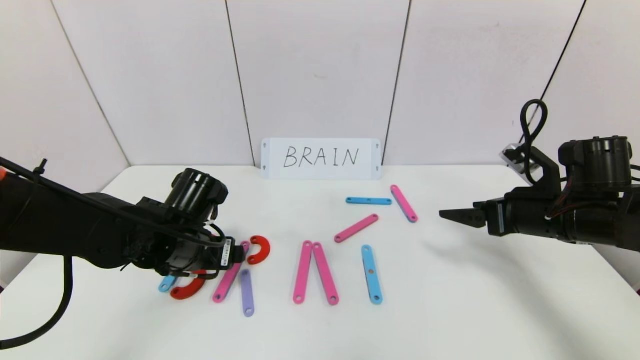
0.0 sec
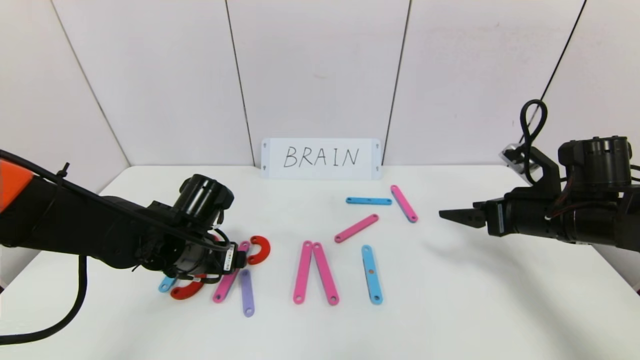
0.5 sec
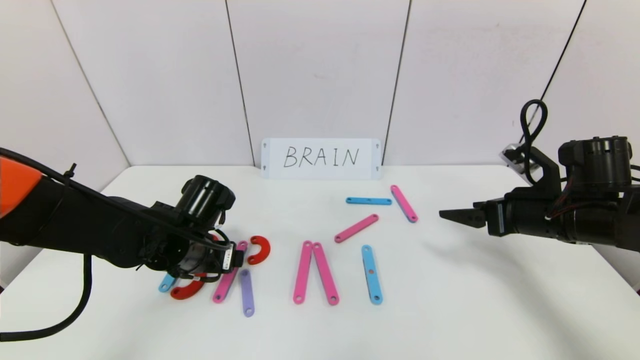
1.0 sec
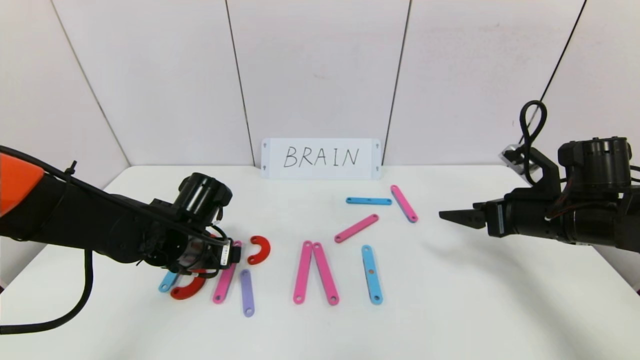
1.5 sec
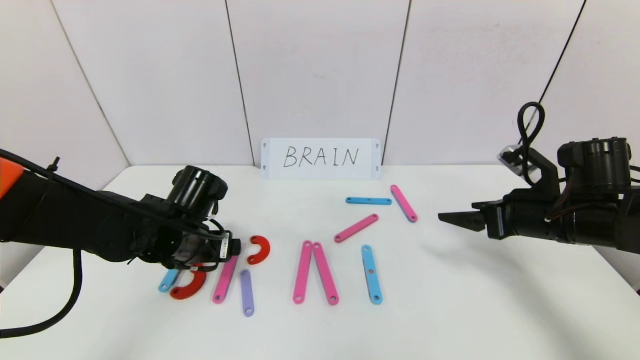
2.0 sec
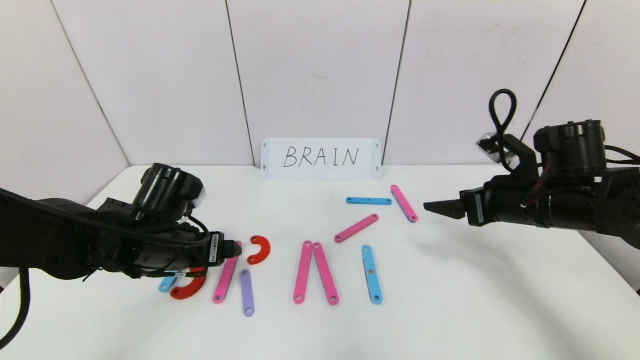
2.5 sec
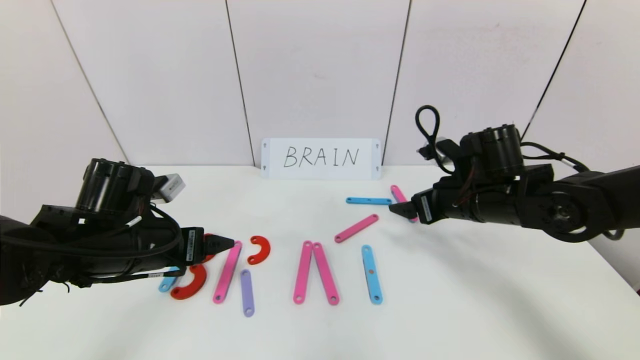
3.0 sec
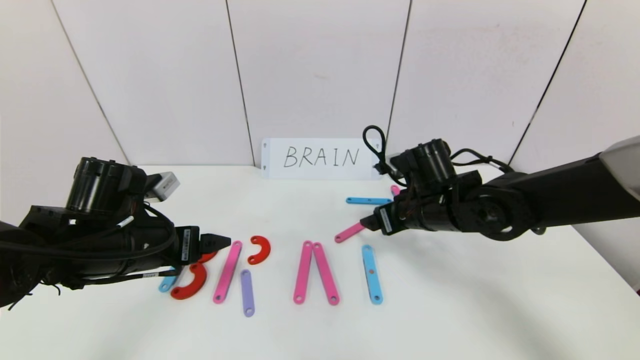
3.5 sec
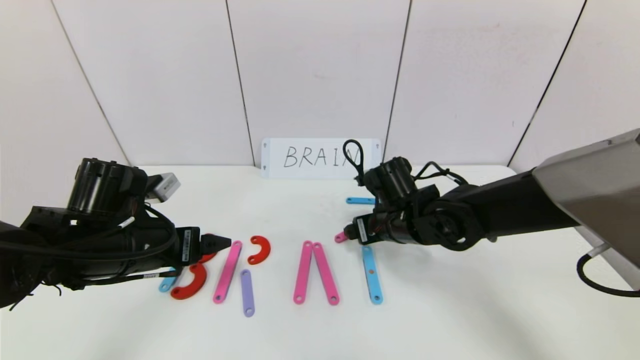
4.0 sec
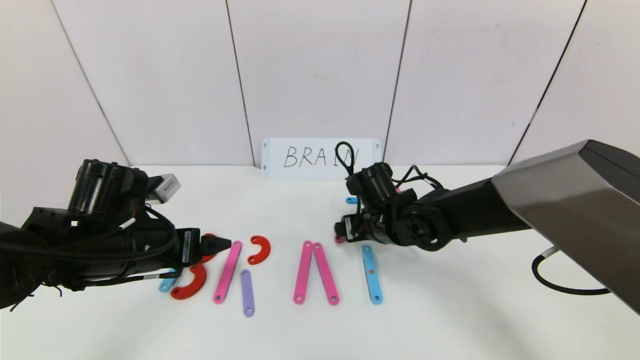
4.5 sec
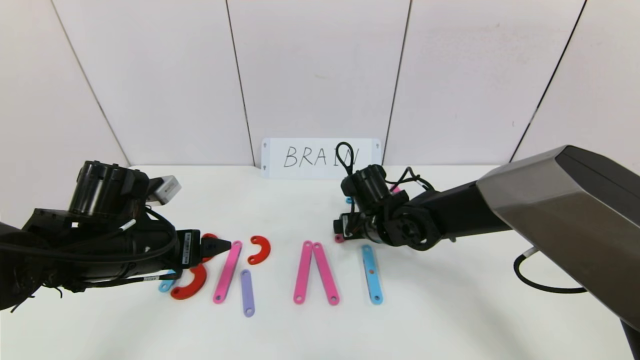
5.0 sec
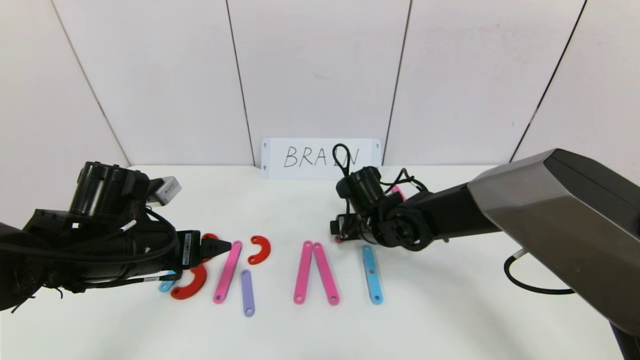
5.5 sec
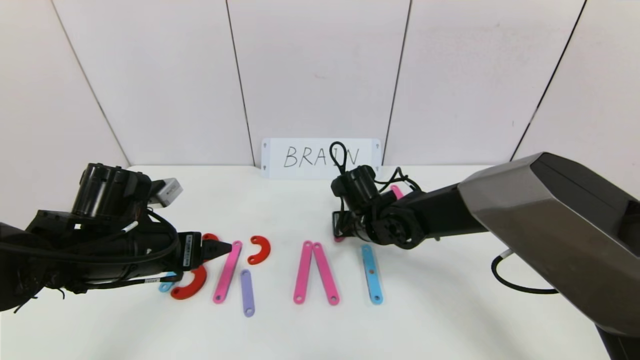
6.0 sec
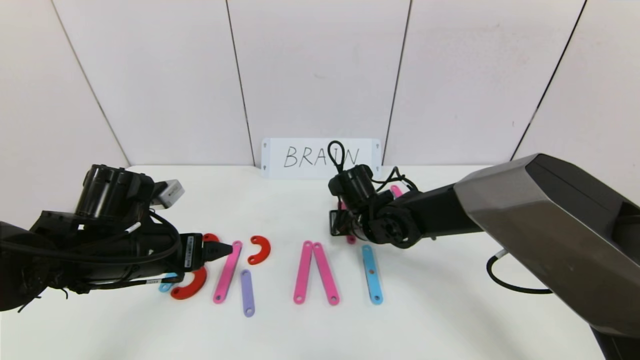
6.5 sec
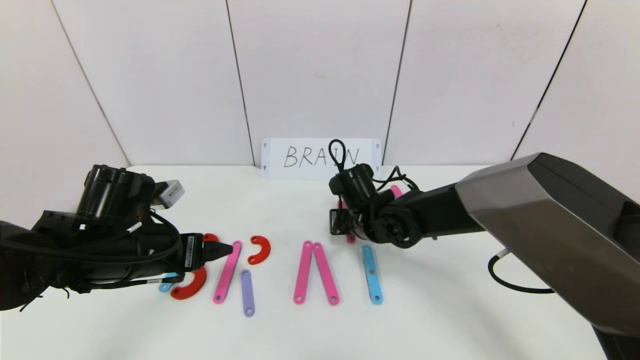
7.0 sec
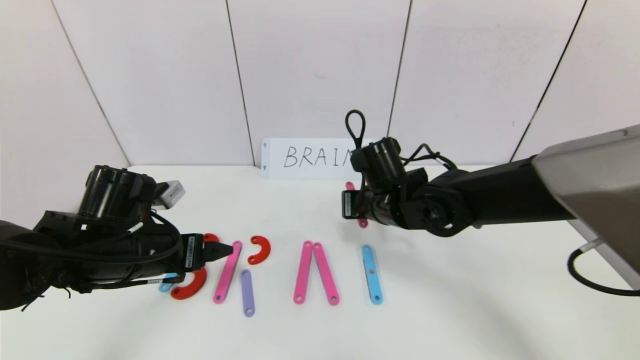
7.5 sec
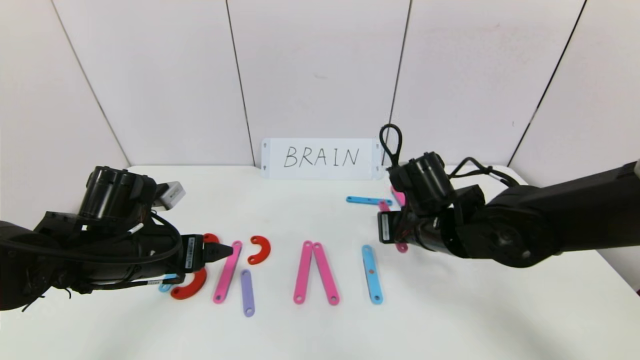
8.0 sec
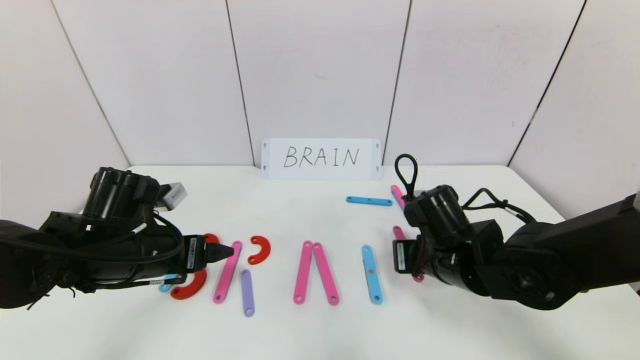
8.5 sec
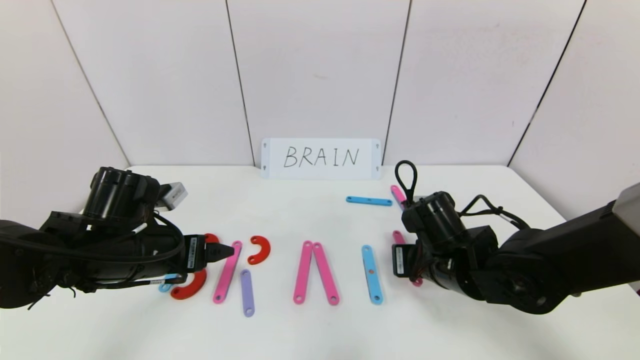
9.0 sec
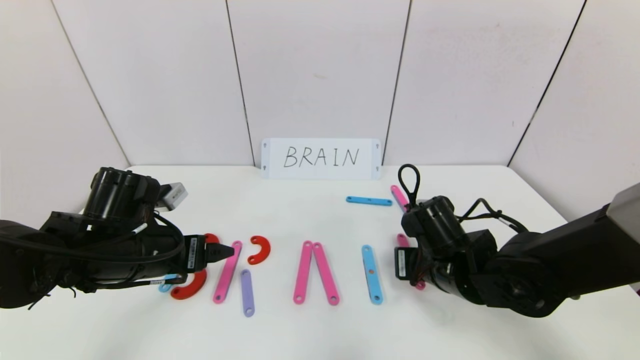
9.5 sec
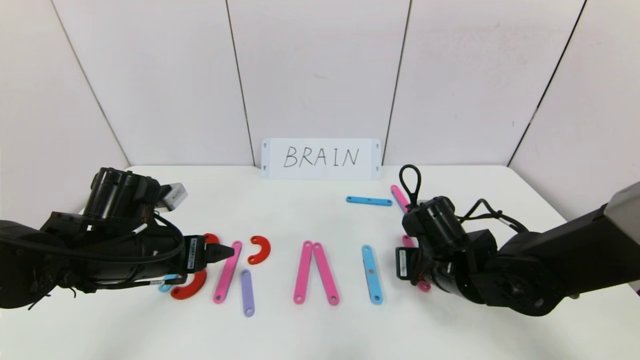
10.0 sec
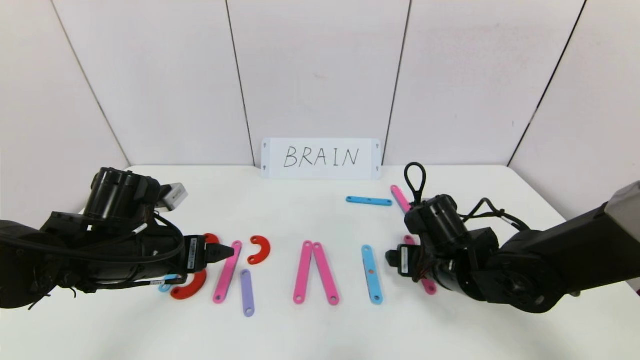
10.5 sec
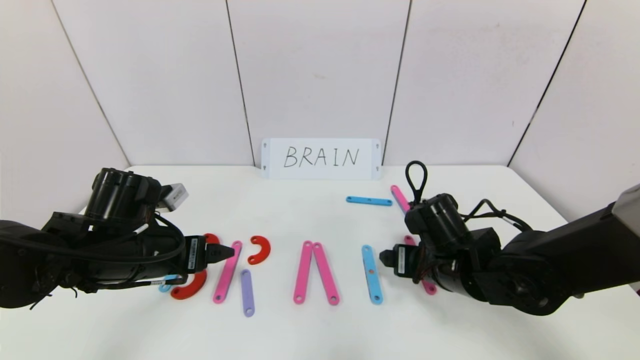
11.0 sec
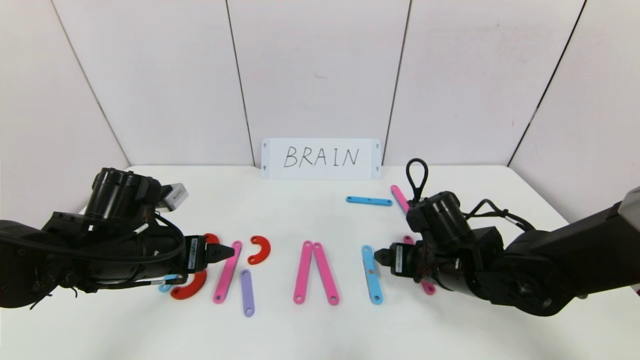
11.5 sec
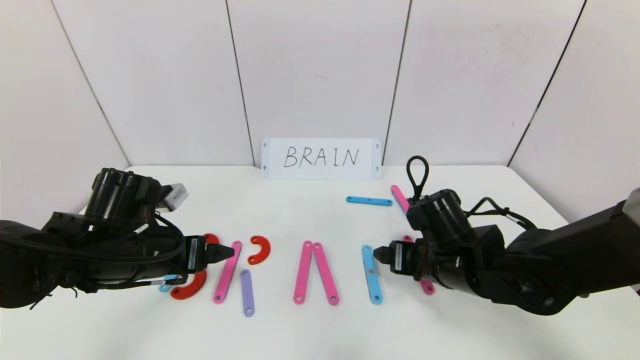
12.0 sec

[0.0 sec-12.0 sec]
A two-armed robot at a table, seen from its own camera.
Task of the whole recording: rearrange the word baai as brain.
Step, 0.0 sec to 2.5 sec: Place the character R between first character B and third character A.
0.0 sec to 2.0 sec: The grippers move only a little.
2.0 sec to 4.0 sec: The right gripper heads to the left, covering roughly 20 cm, while the left gripper moves roughly 5 cm.
4.0 sec to 6.0 sec: The right gripper ends up roughly 5 cm from where it was, and closes.
6.0 sec to 8.0 sec: The right gripper heads to the right, backward and upward, covering approximately 10 cm, and closes up.
8.0 sec to 10.0 sec: The right gripper goes about 5 cm downward.
10.0 sec to 12.0 sec: The right gripper opens up.

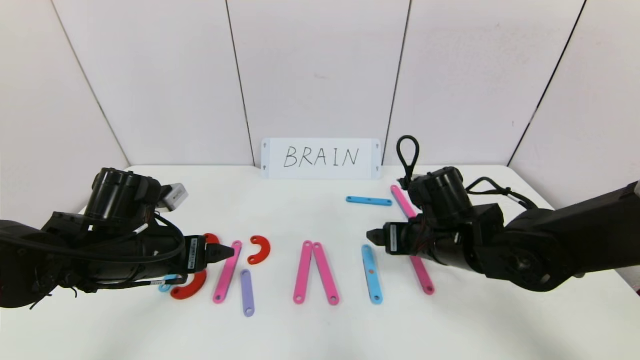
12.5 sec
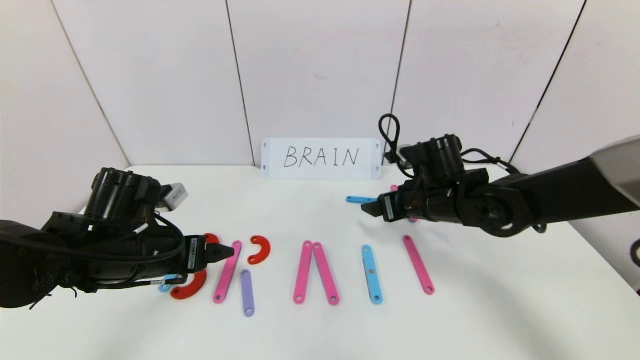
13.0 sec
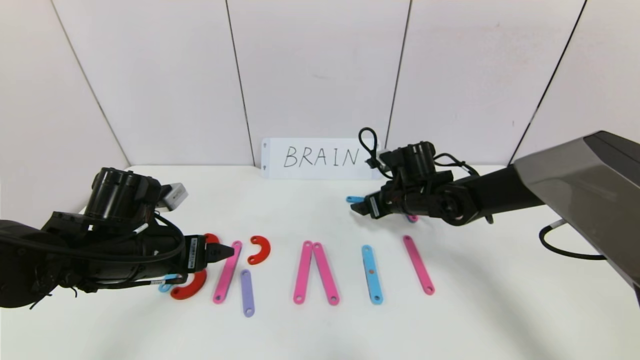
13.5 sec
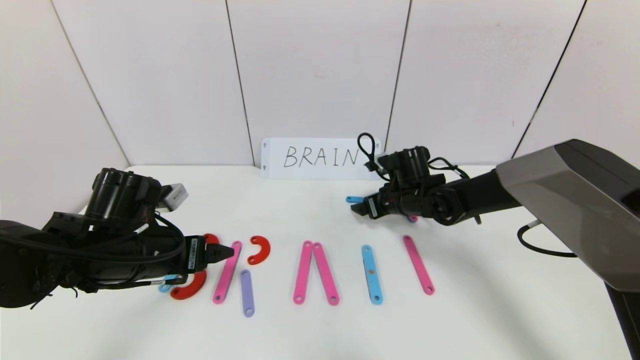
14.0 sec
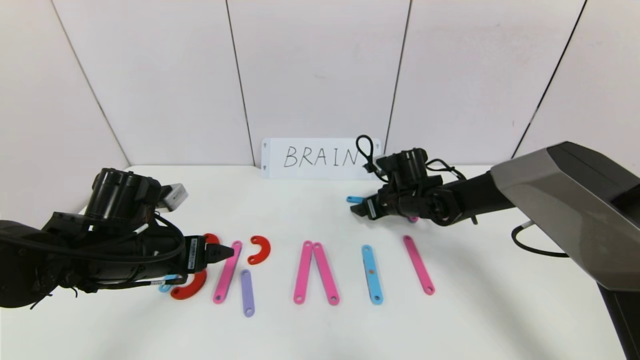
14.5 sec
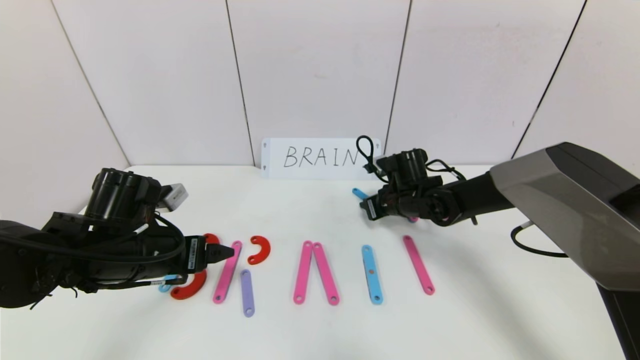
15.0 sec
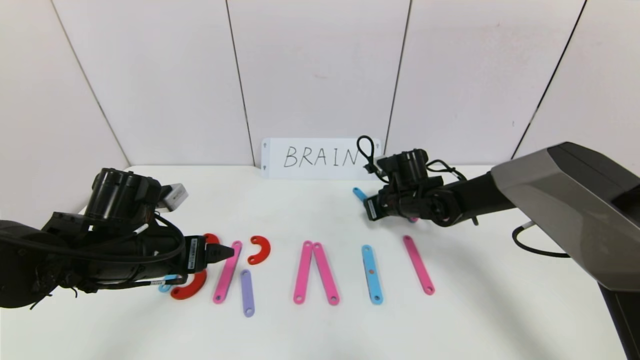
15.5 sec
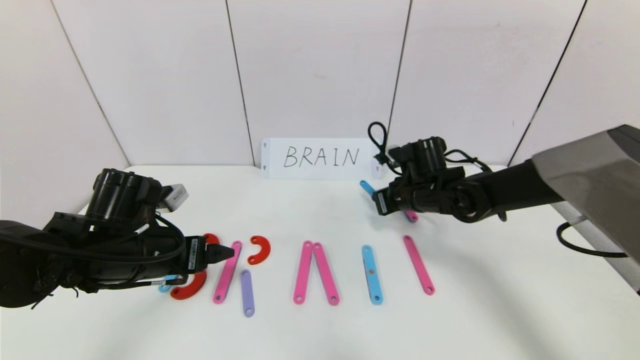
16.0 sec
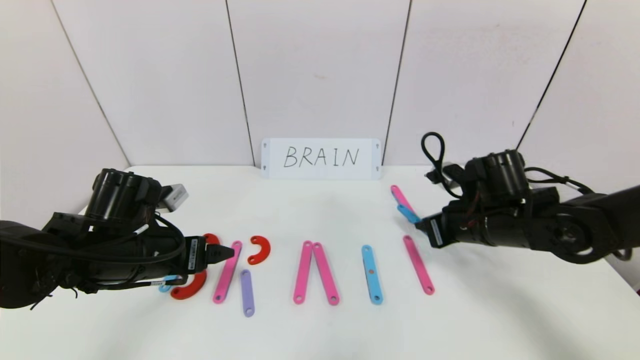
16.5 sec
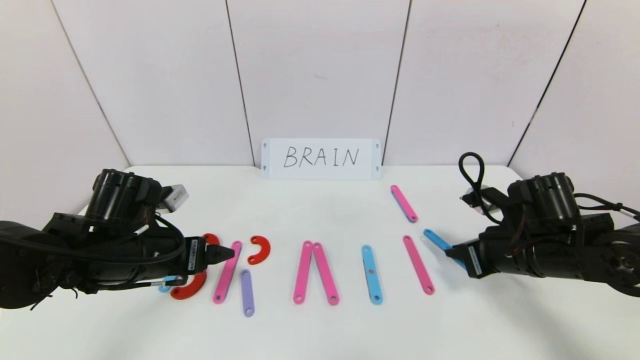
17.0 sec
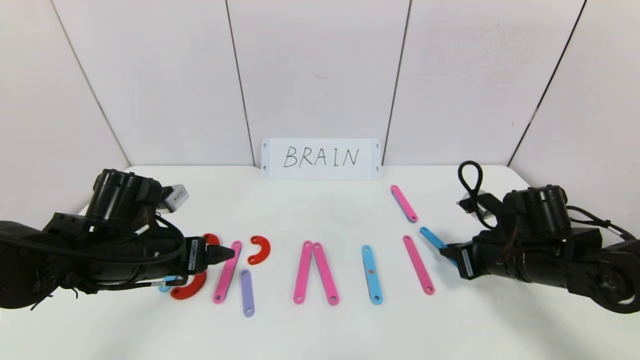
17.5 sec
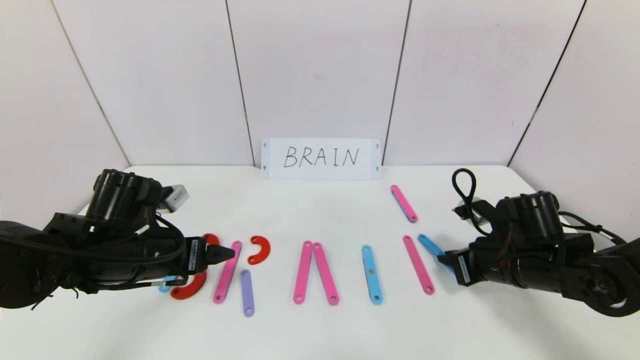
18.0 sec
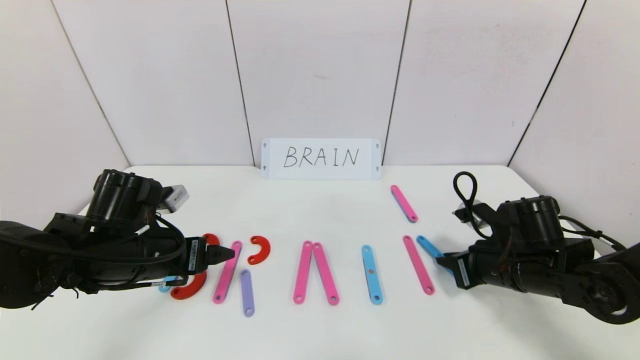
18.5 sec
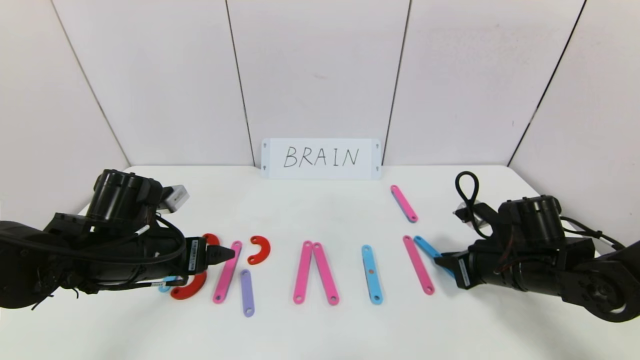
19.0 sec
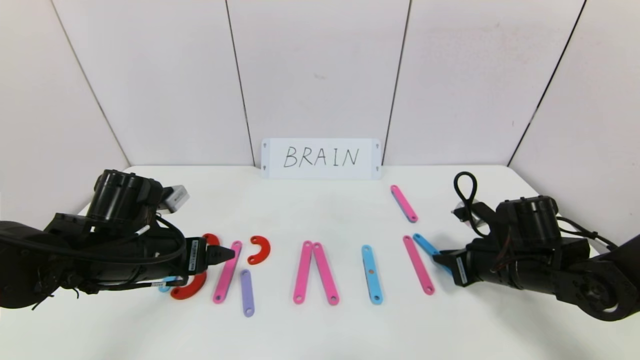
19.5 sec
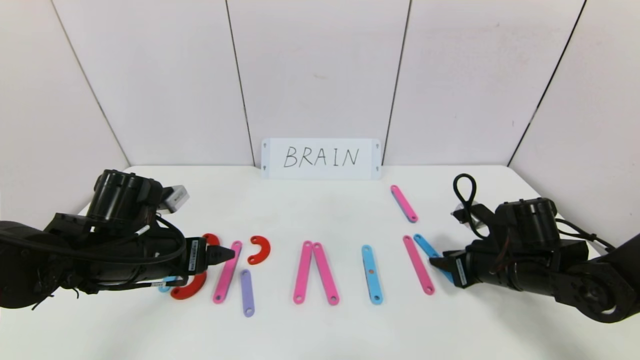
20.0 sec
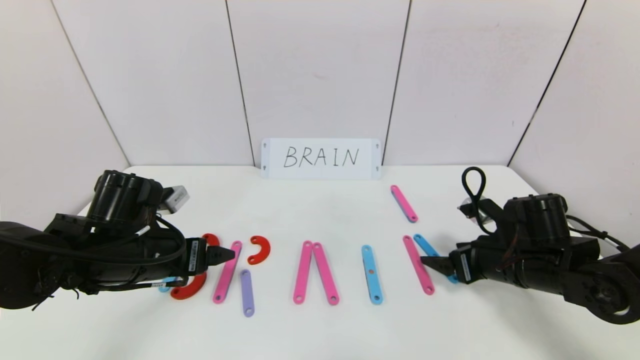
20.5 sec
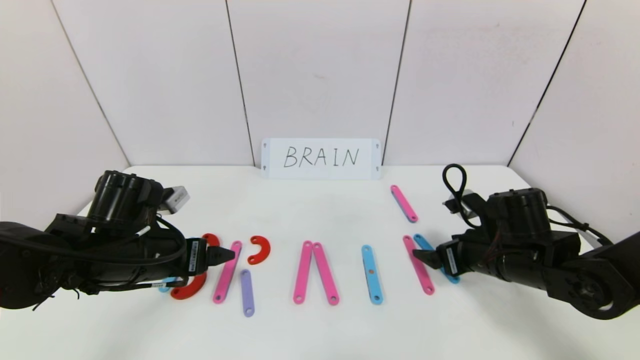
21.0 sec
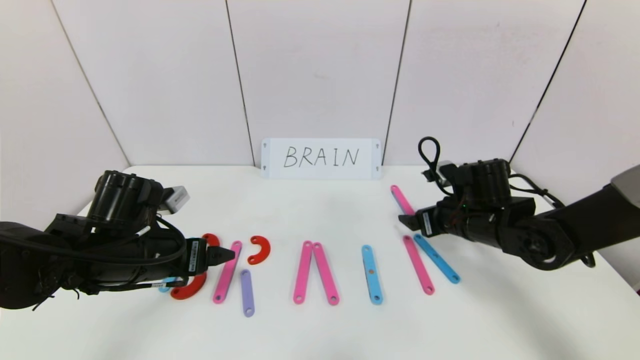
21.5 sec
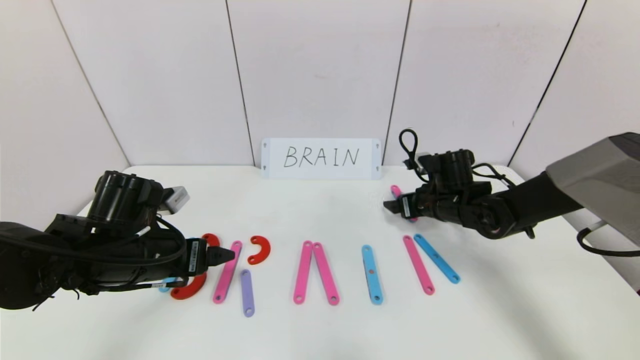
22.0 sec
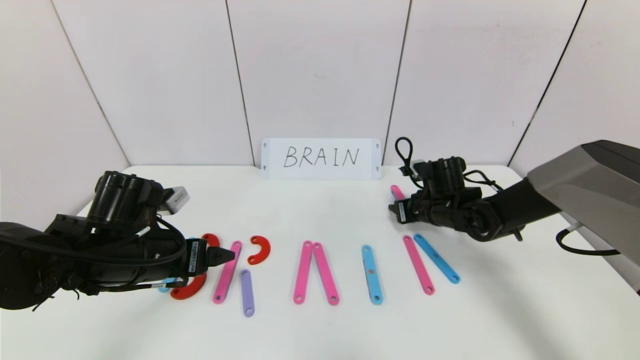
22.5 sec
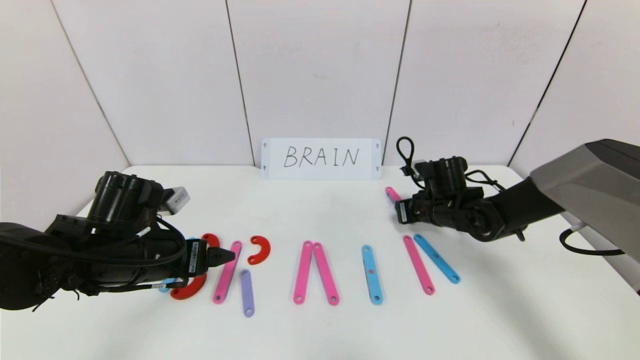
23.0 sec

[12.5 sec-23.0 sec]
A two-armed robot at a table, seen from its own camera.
Task of the whole recording: rearrange the word baai as brain.
12.5 sec to 14.5 sec: The right gripper goes roughly 15 cm forward.
14.5 sec to 16.5 sec: The right gripper goes some 15 cm backward and to the right, and closes up.
16.5 sec to 19.0 sec: The right gripper is displaced downward by roughly 5 cm.
19.0 sec to 21.0 sec: The right gripper opens its fingers.
21.0 sec to 23.0 sec: The right gripper goes some 10 cm forward, and closes.
